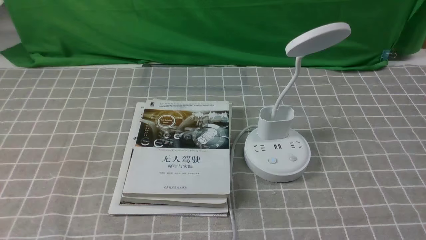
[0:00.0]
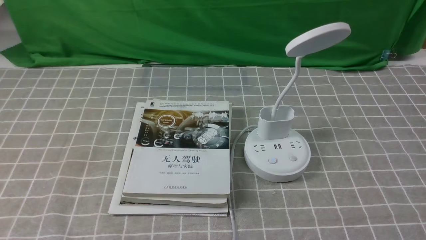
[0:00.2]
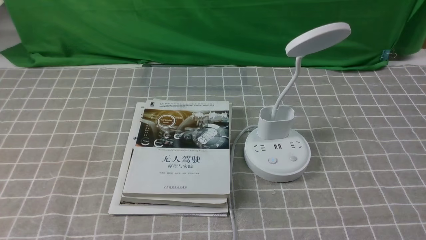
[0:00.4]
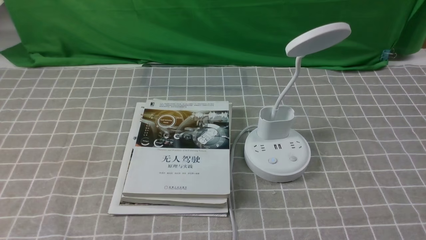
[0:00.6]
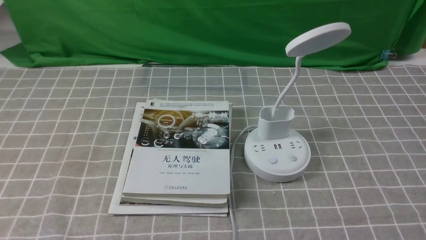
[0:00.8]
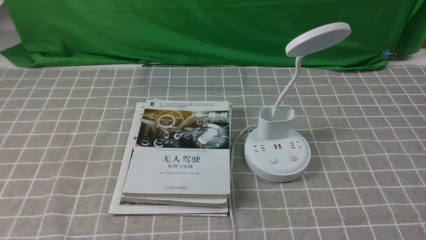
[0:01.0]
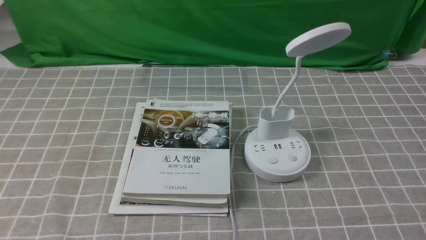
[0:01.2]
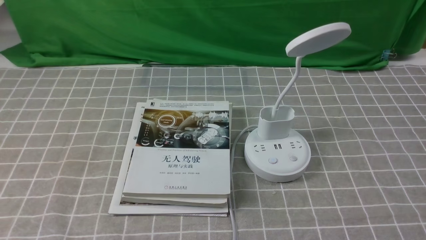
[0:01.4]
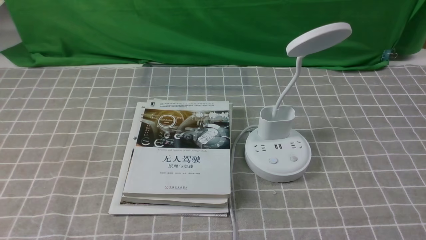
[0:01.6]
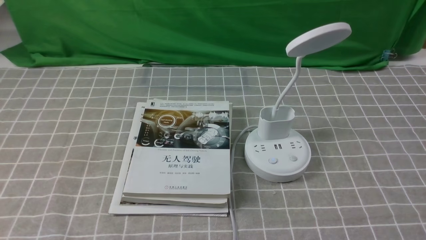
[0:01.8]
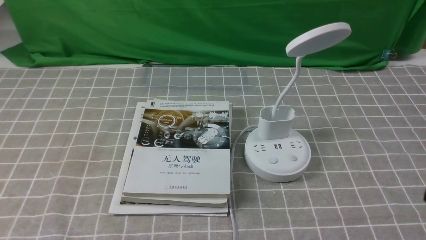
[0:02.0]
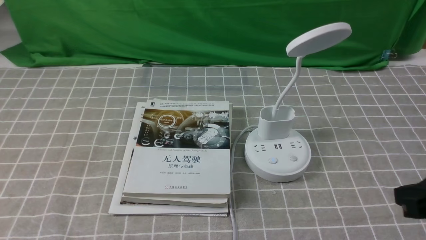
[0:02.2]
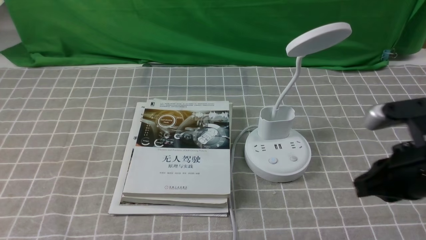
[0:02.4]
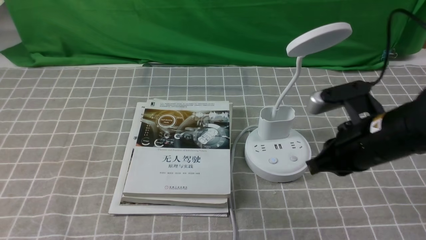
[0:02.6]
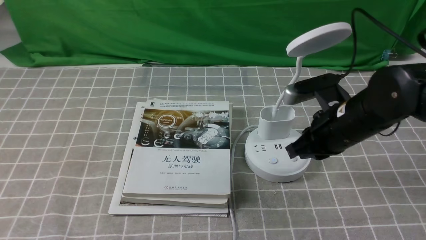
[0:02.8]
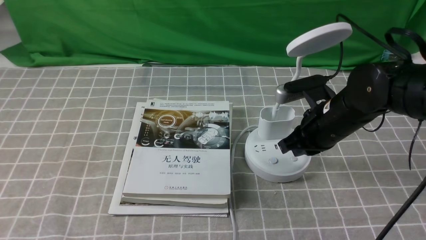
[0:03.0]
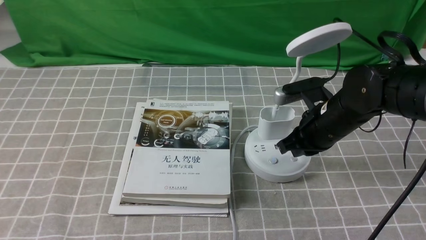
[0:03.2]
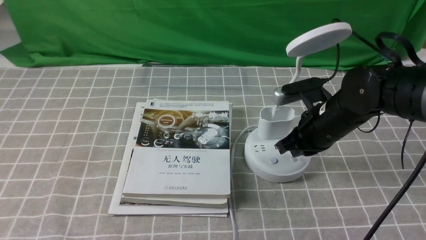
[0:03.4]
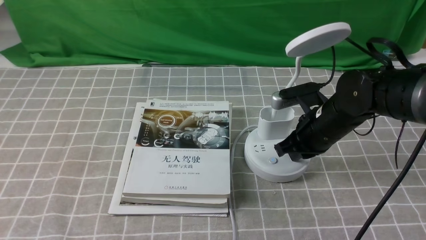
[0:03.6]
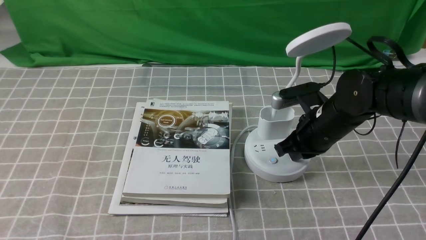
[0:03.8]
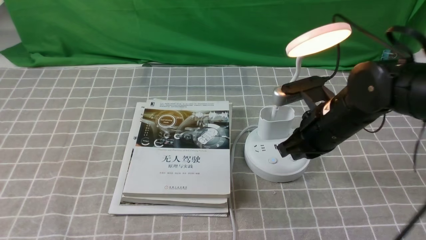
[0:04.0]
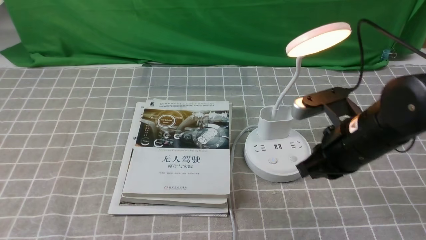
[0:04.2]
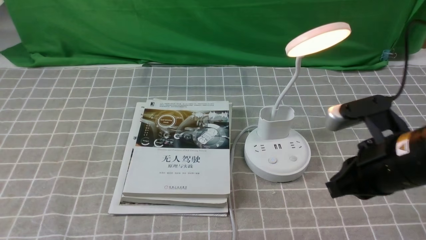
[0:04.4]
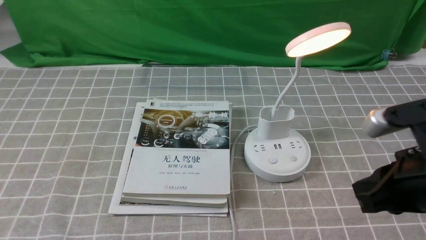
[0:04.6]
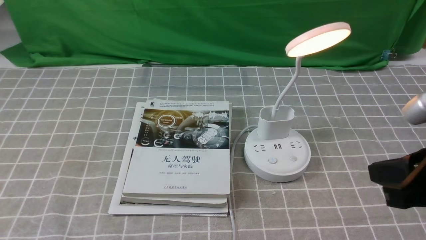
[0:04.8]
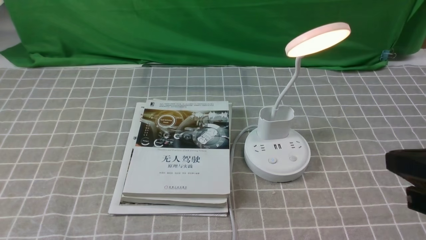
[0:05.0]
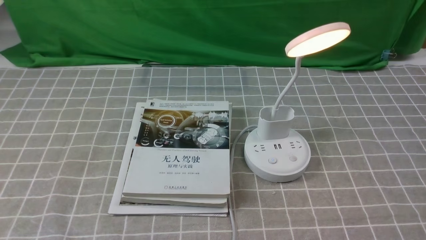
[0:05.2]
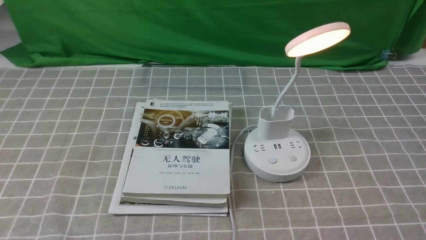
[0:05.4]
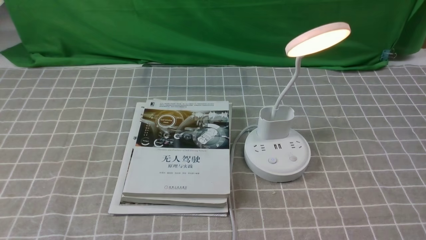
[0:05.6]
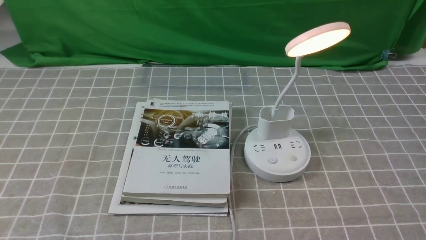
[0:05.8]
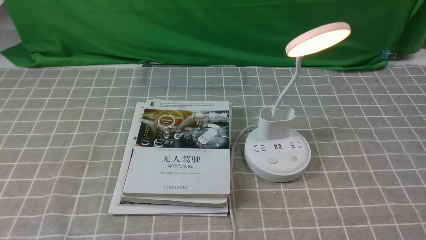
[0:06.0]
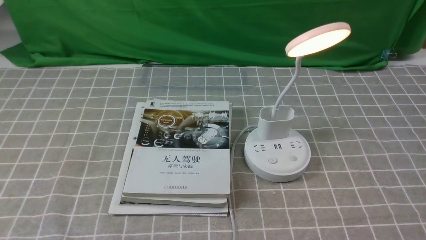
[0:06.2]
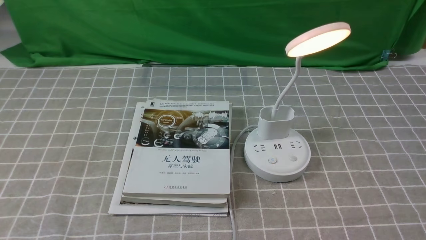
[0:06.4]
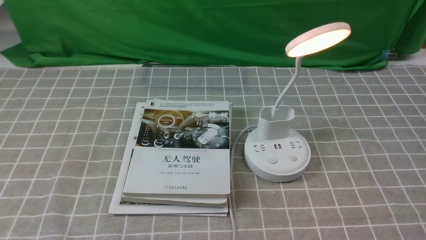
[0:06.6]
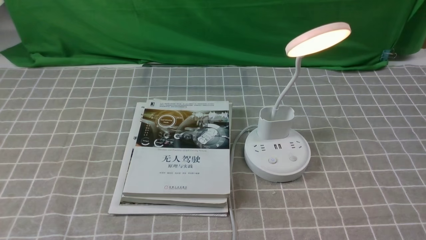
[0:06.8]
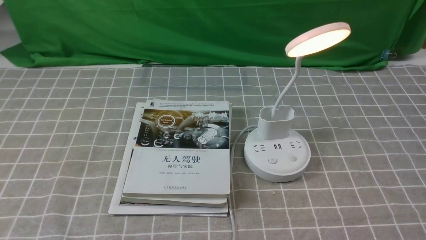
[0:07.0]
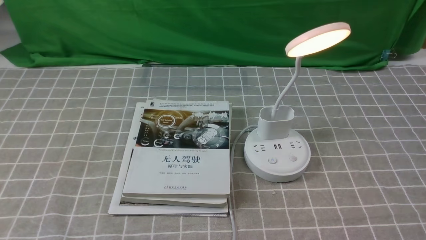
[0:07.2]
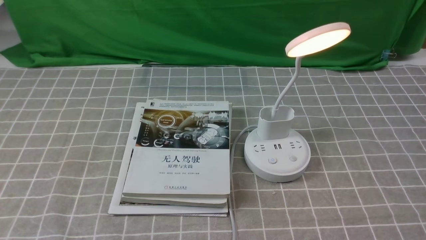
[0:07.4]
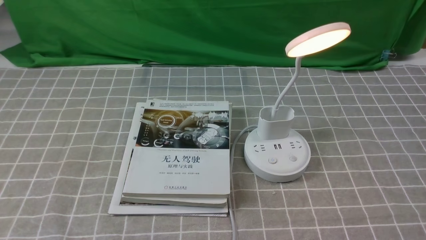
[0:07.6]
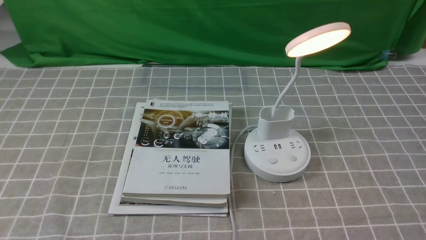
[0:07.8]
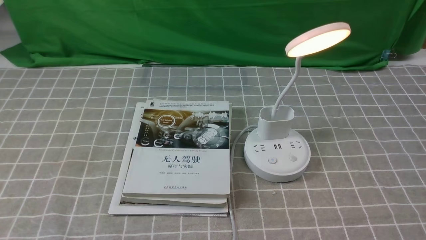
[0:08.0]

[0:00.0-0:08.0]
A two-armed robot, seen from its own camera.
Step, 0:00.0 to 0:04.0: use the right arm to press the button switch on the lamp holder.
0:01.6 to 0:03.2: The right gripper travels forward and to the left by about 30 cm, and closes its fingers.
0:03.2 to 0:04.8: The right gripper moves backward and upward, about 20 cm.
0:04.8 to 0:06.4: The right gripper travels downward, backward and to the right by approximately 15 cm.
